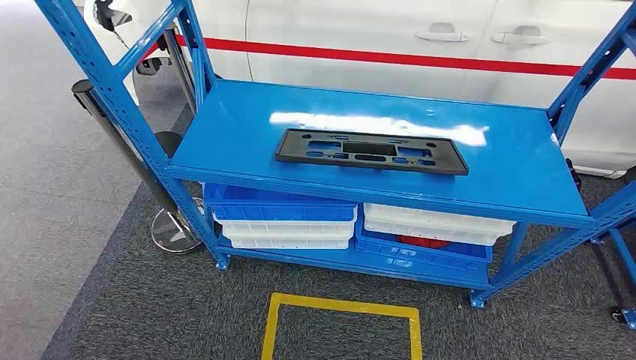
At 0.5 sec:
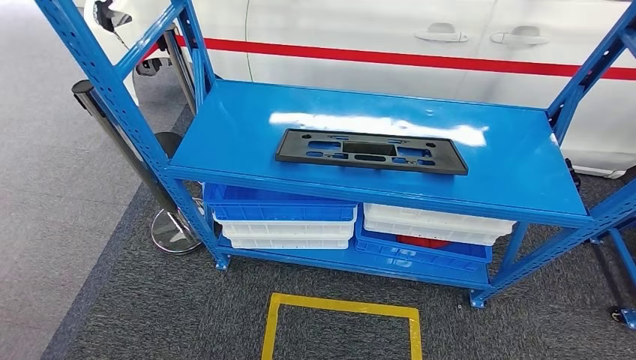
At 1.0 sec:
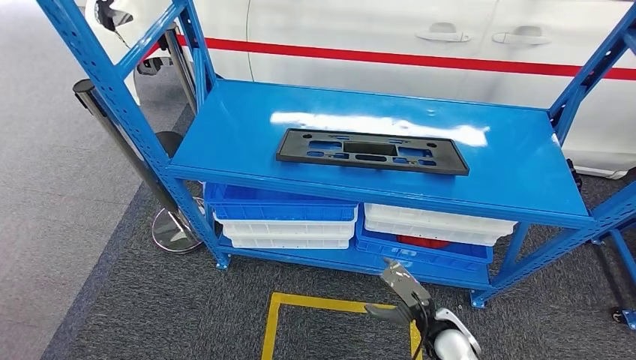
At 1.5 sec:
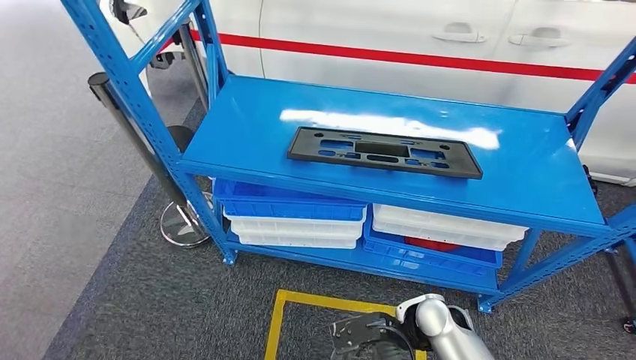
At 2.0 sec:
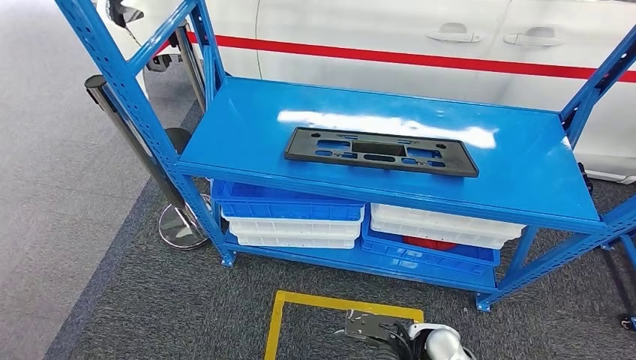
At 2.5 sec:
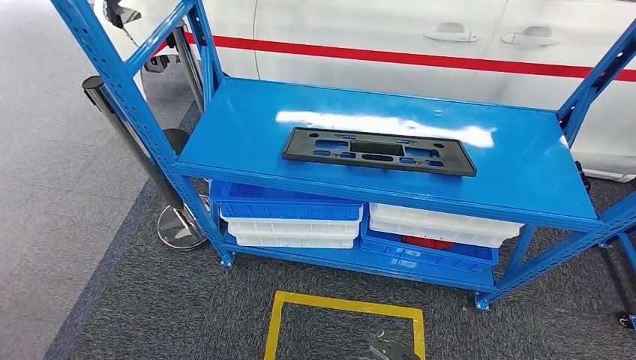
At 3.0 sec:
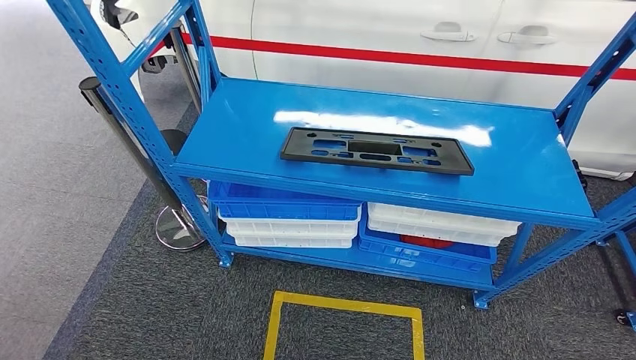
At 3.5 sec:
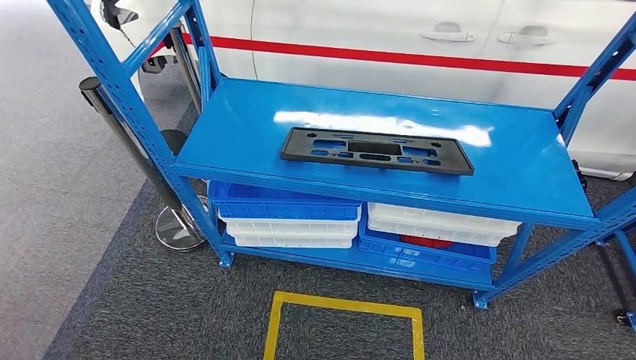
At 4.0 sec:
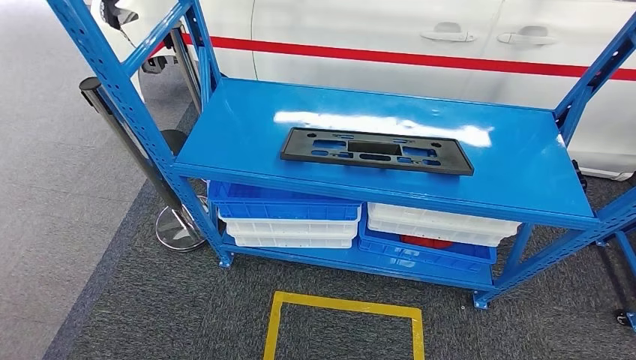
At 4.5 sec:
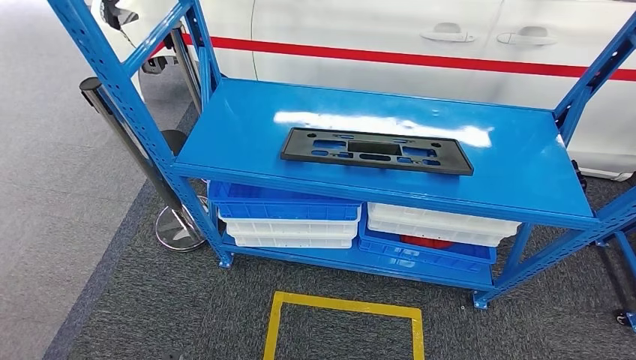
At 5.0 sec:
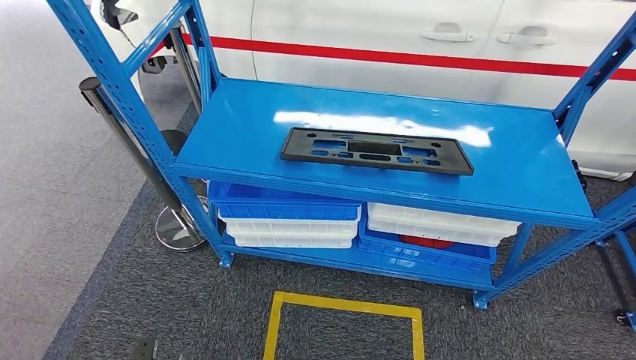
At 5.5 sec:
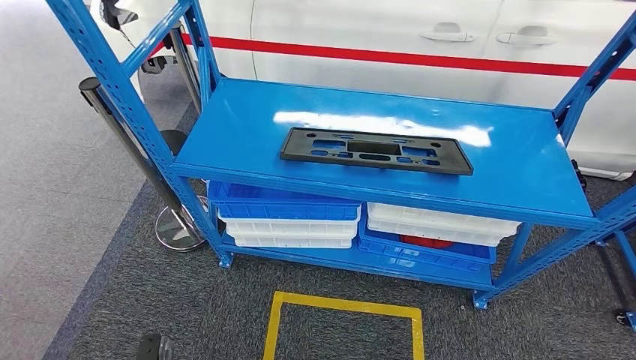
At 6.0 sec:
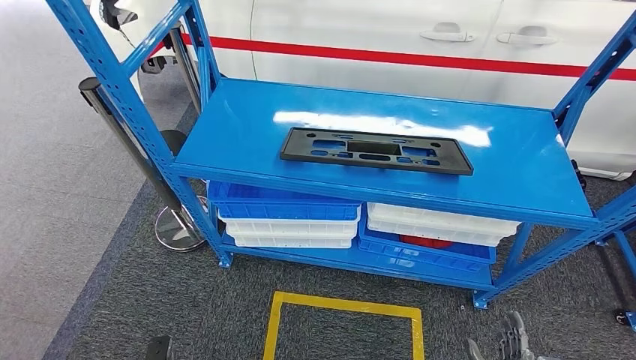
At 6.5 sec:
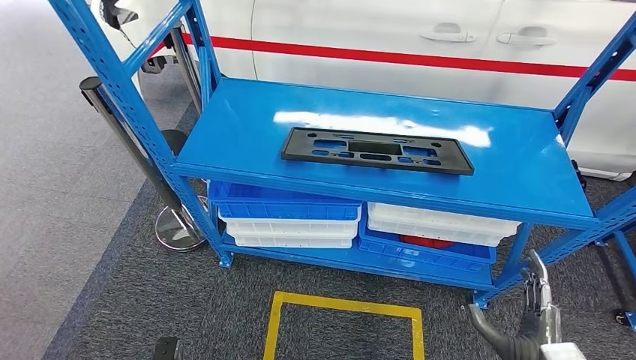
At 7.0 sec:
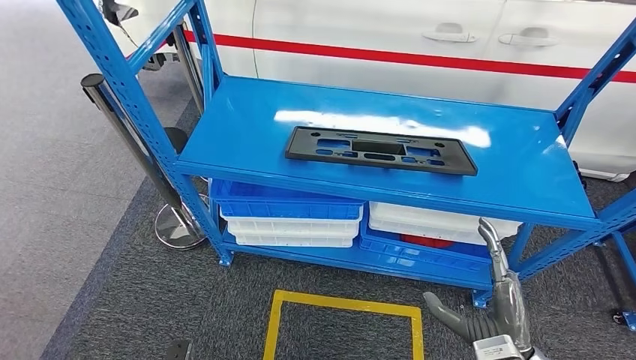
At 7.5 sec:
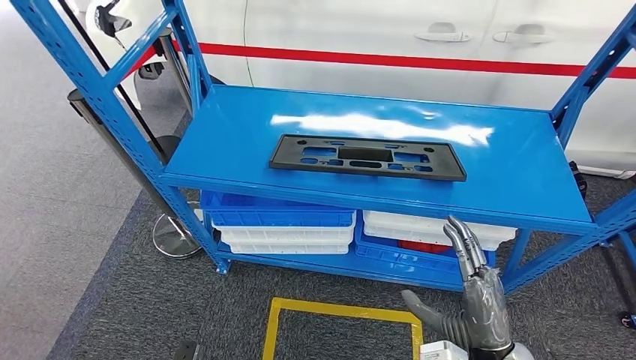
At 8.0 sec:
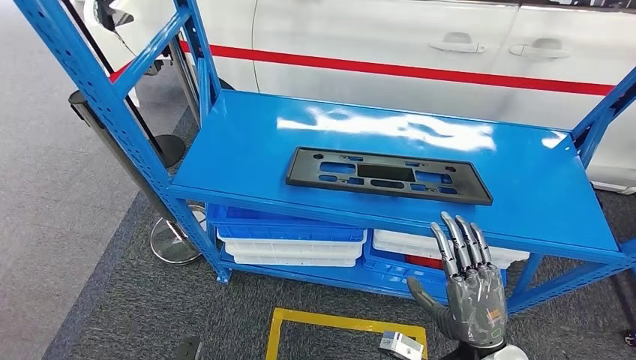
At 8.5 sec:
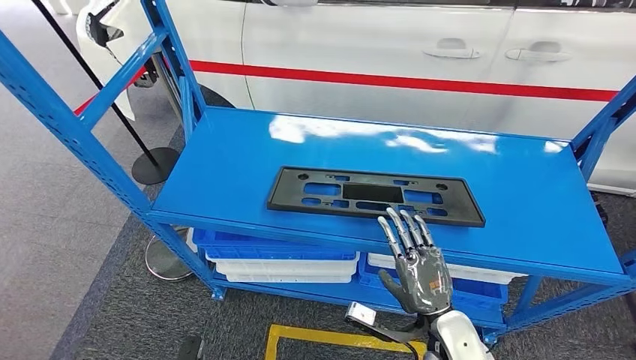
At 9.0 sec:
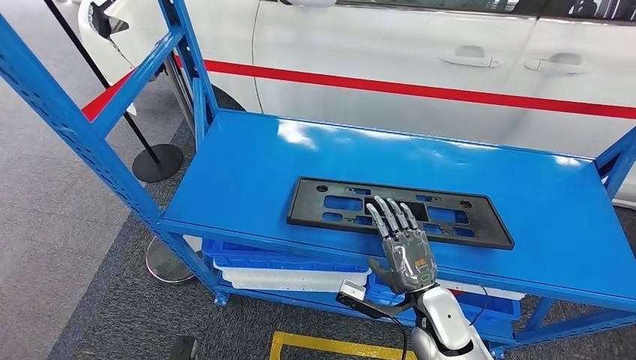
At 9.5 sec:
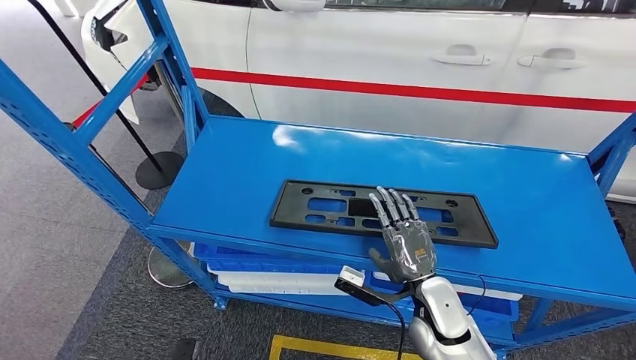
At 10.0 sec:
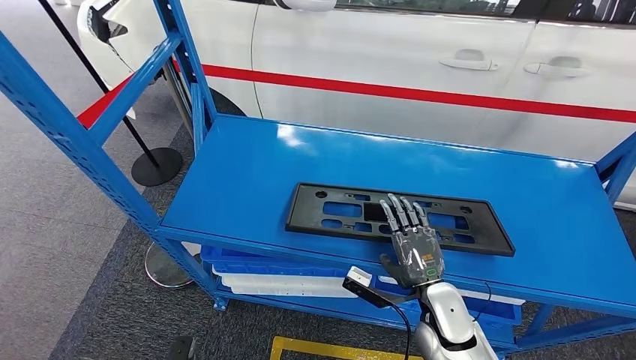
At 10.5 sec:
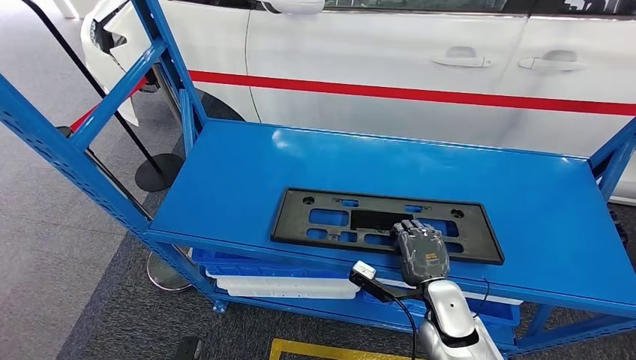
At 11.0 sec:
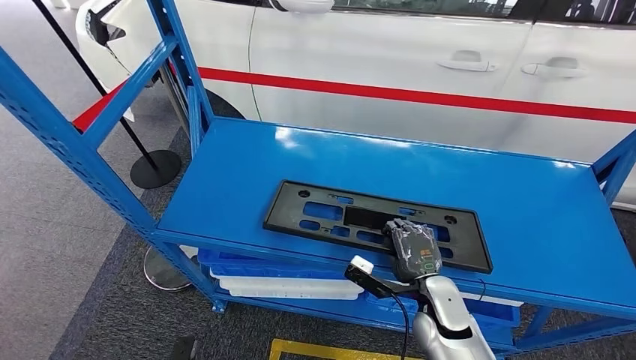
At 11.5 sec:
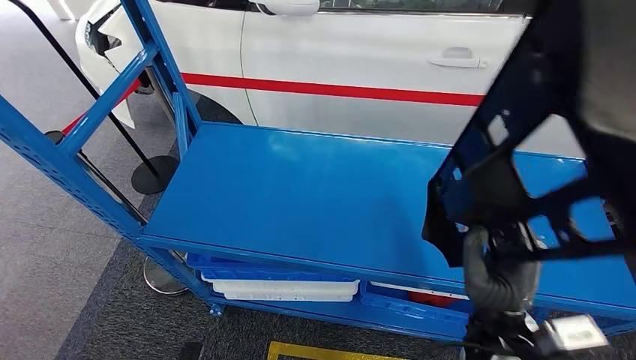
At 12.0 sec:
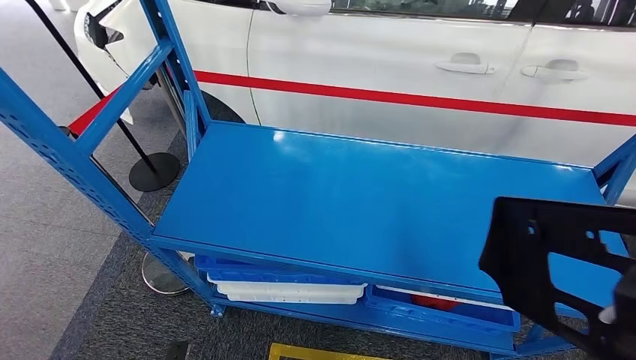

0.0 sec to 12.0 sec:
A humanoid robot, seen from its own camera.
2.0 sec to 4.0 sec: The left hand heads backward and to the left, covering some 10 cm. The right hand goes some 35 cm backward and downward.
4.0 sec to 6.0 sec: The right hand is displaced forward and upward by approximately 20 cm.

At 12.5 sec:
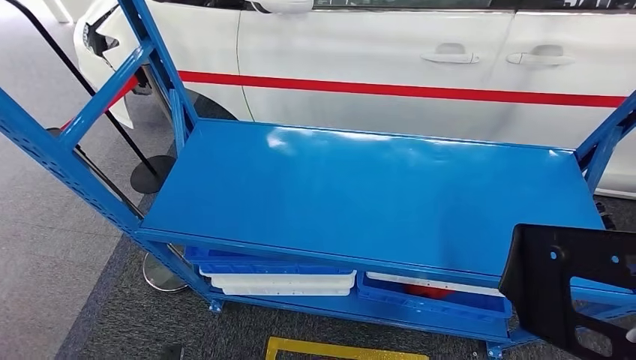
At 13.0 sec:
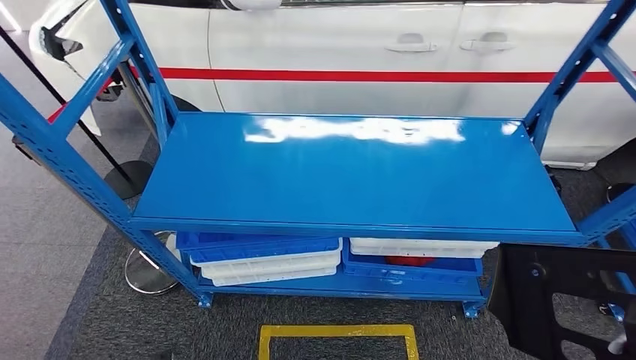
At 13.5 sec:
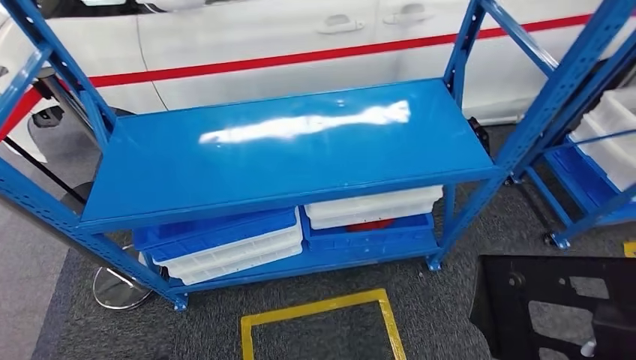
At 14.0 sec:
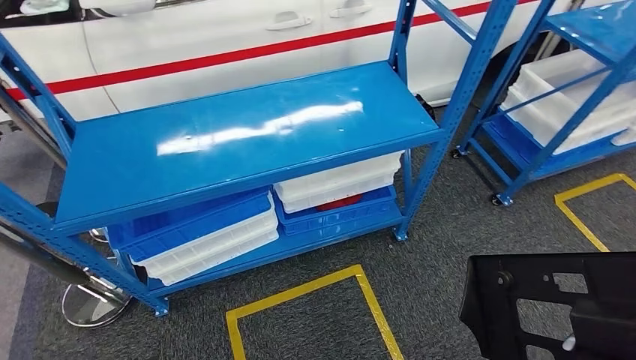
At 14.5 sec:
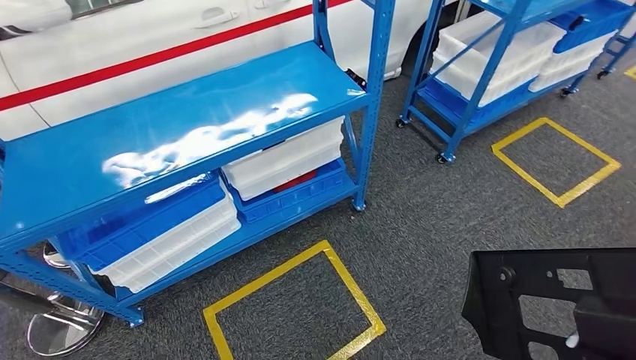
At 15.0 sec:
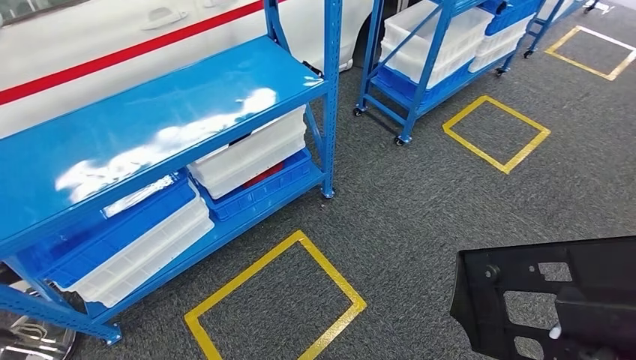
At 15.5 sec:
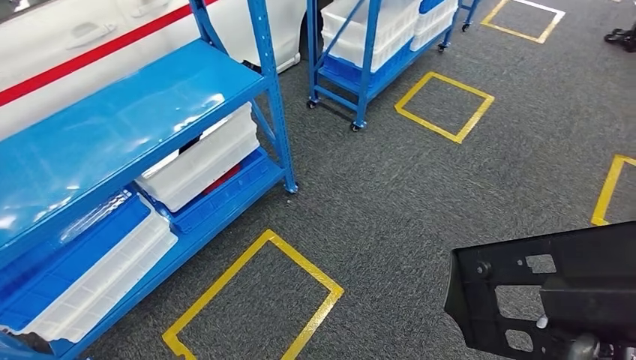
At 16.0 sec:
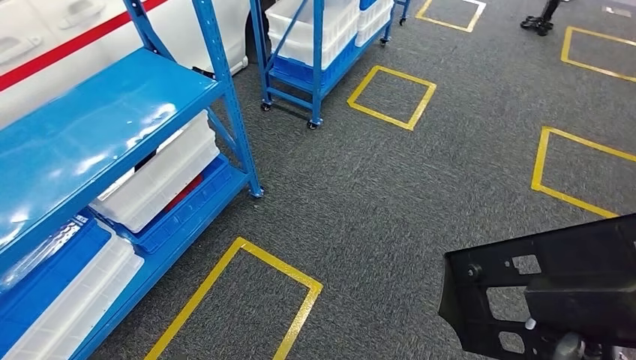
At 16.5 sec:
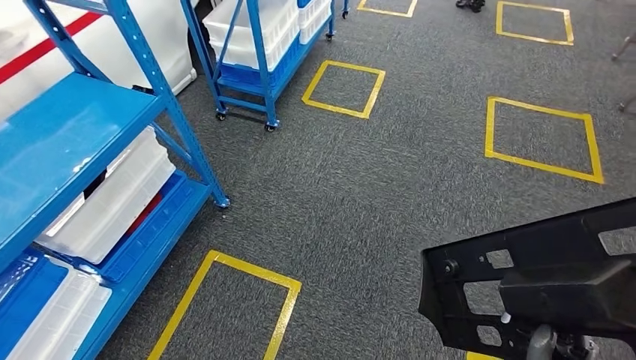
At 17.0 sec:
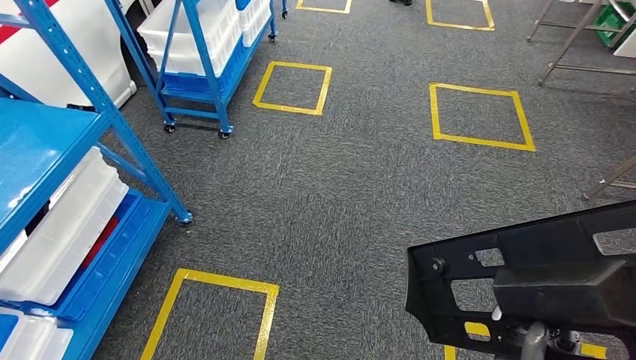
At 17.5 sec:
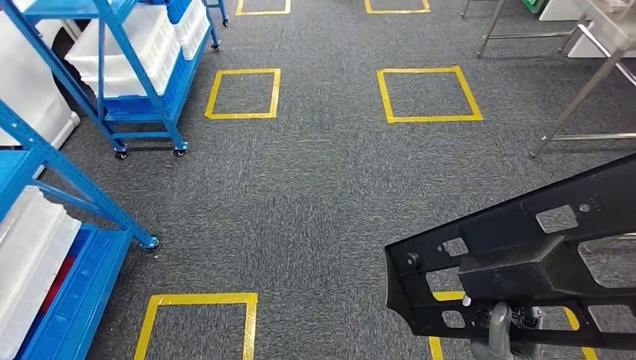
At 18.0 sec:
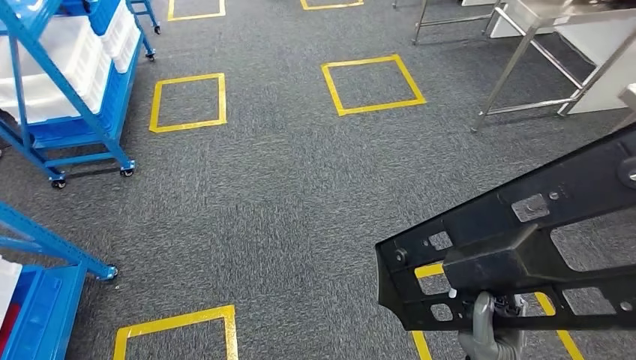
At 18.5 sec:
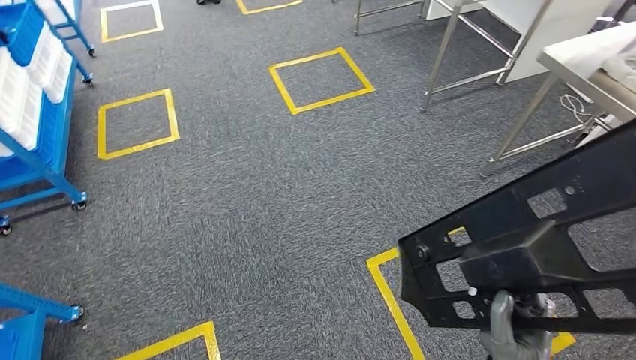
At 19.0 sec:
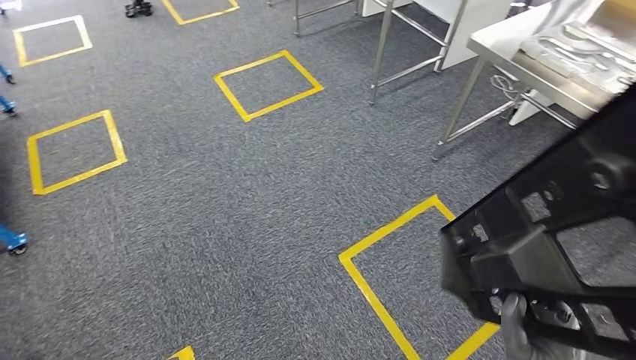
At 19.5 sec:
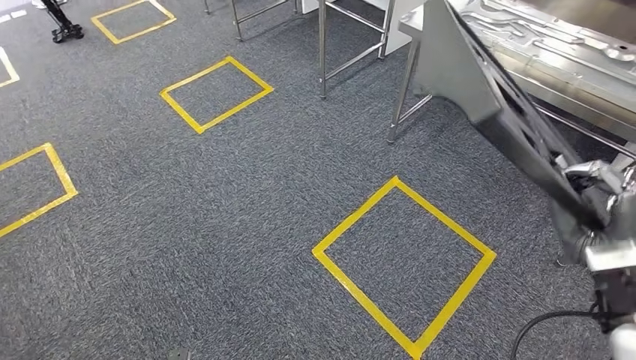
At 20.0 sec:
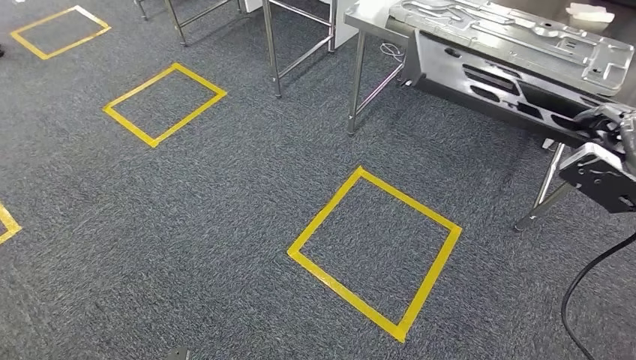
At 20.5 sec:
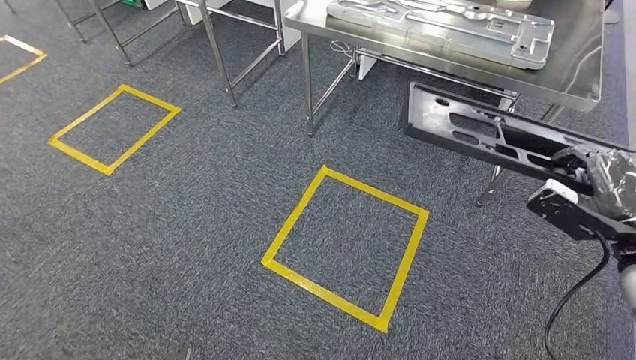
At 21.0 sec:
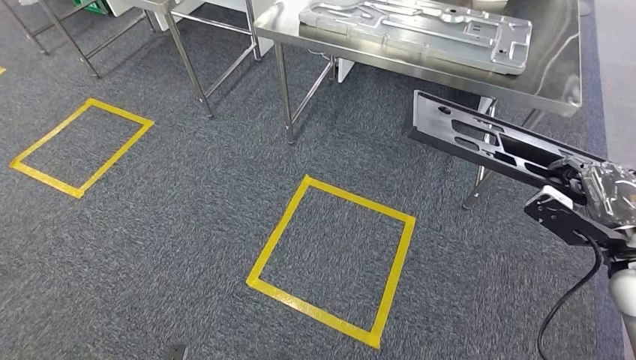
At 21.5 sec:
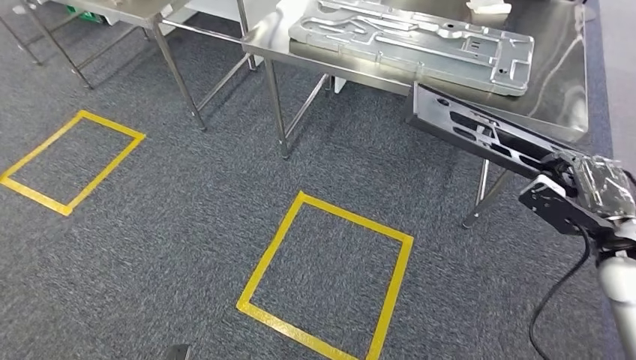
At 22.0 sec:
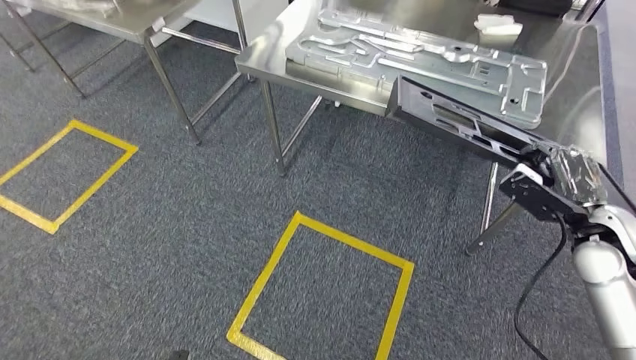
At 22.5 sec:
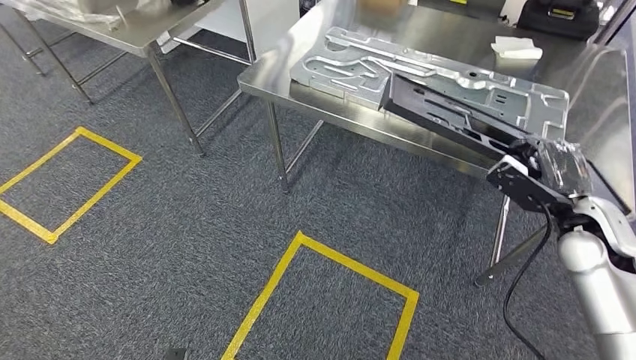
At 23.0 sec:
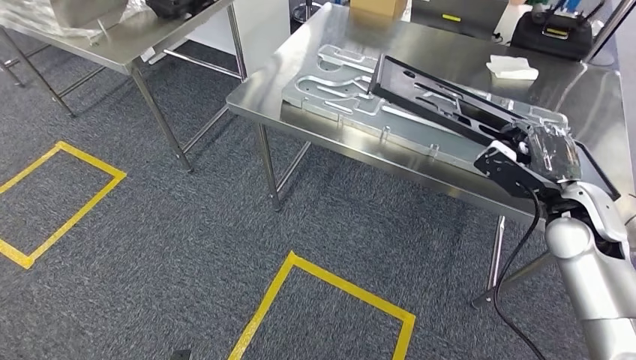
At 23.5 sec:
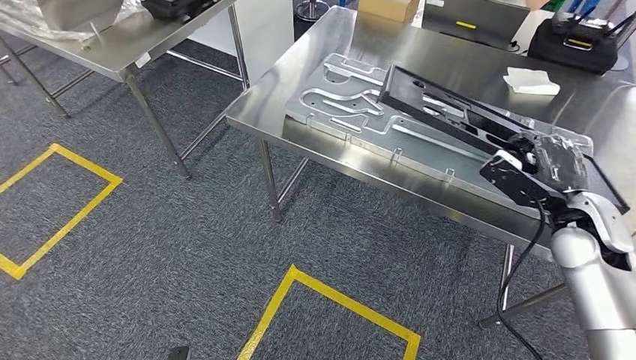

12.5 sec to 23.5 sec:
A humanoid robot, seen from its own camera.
Step, 14.5 sec to 23.0 sec: Move the large material to the workbench.
